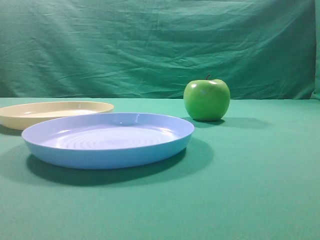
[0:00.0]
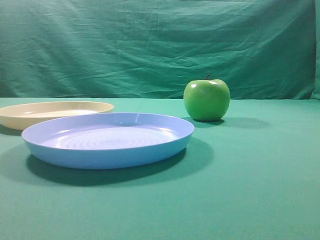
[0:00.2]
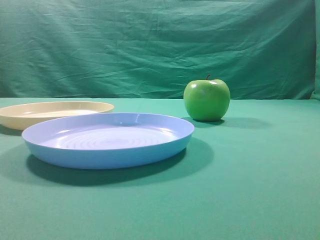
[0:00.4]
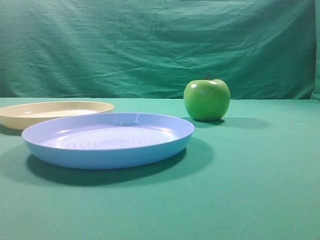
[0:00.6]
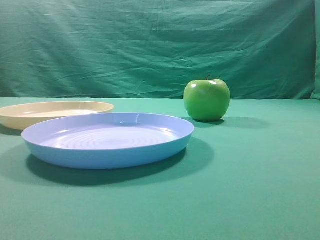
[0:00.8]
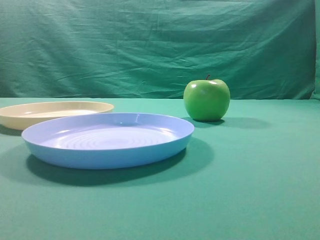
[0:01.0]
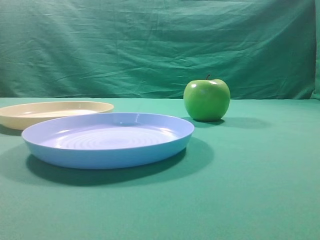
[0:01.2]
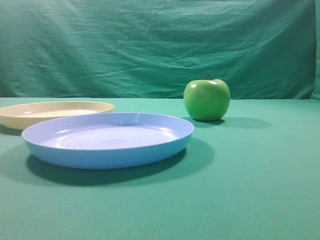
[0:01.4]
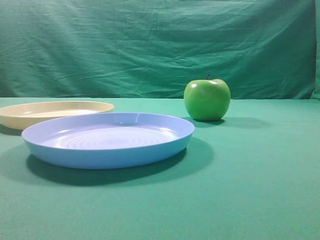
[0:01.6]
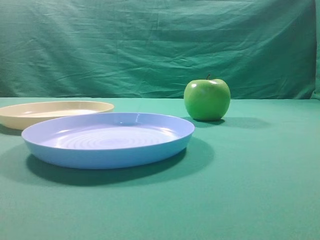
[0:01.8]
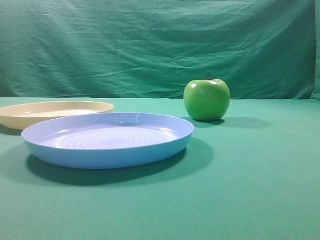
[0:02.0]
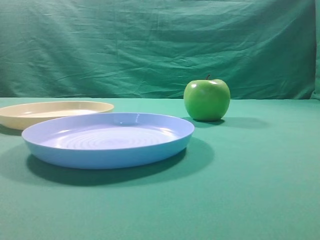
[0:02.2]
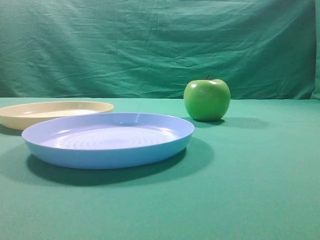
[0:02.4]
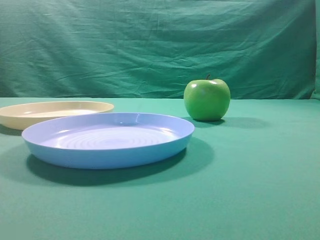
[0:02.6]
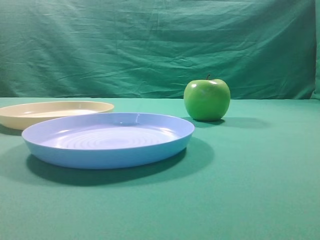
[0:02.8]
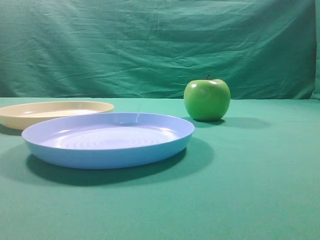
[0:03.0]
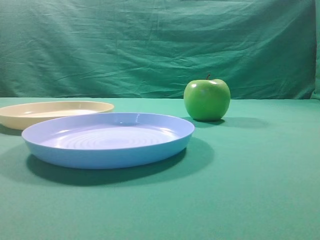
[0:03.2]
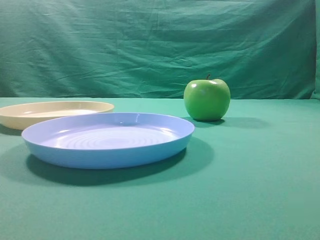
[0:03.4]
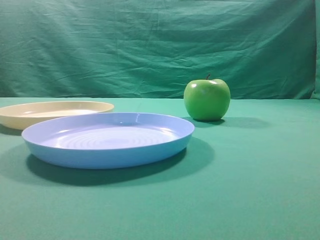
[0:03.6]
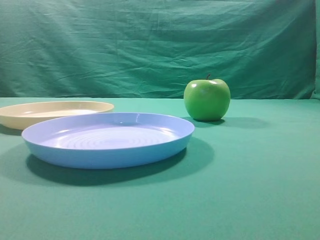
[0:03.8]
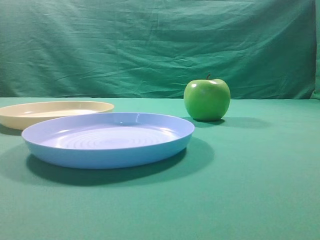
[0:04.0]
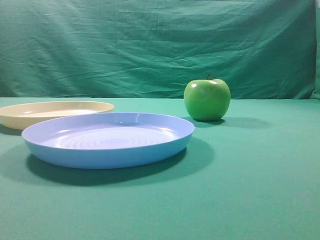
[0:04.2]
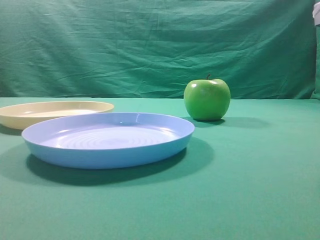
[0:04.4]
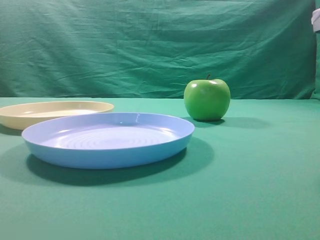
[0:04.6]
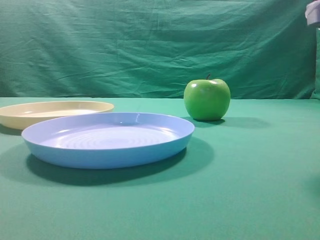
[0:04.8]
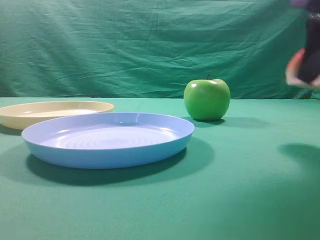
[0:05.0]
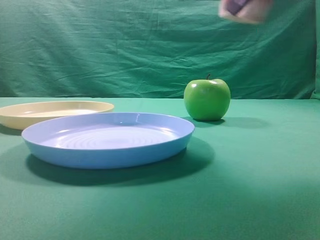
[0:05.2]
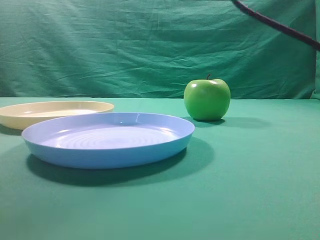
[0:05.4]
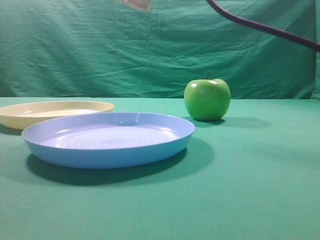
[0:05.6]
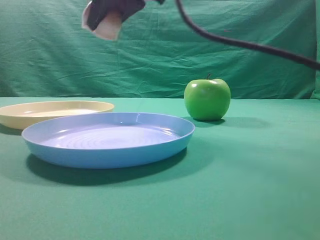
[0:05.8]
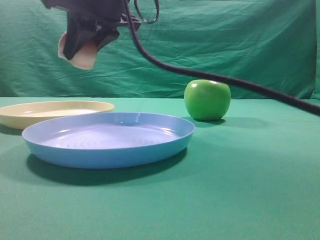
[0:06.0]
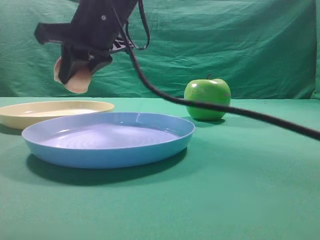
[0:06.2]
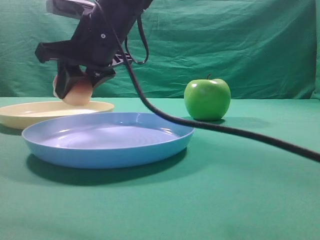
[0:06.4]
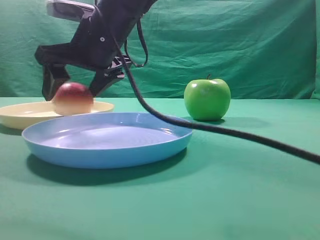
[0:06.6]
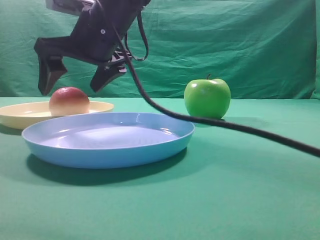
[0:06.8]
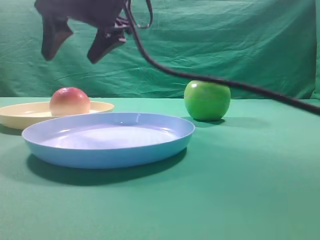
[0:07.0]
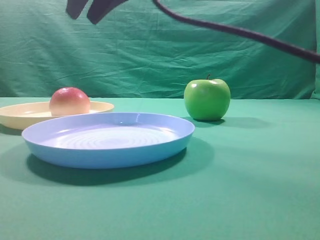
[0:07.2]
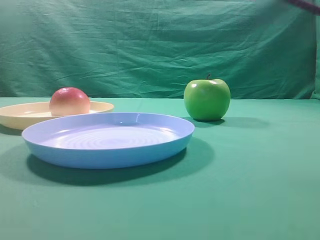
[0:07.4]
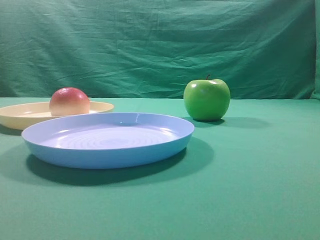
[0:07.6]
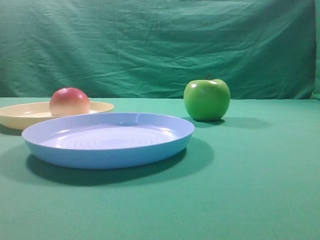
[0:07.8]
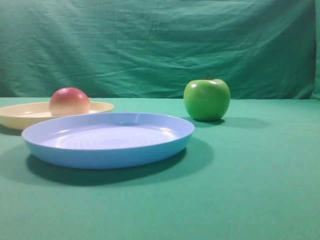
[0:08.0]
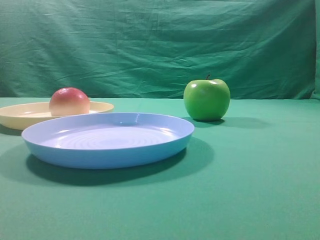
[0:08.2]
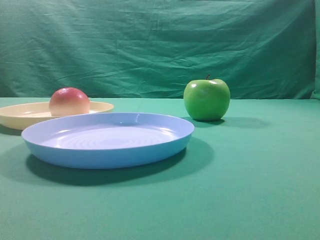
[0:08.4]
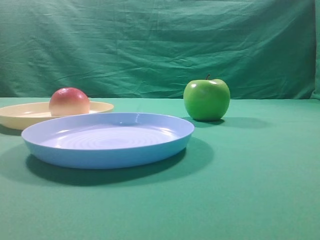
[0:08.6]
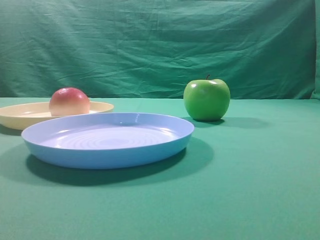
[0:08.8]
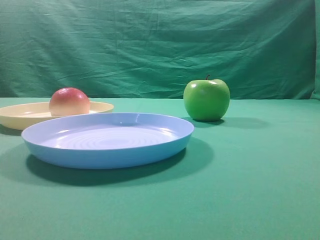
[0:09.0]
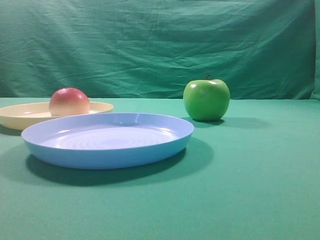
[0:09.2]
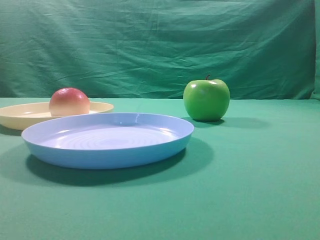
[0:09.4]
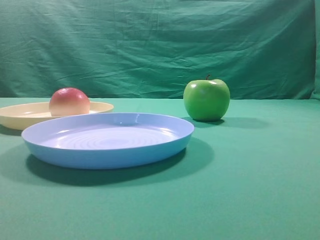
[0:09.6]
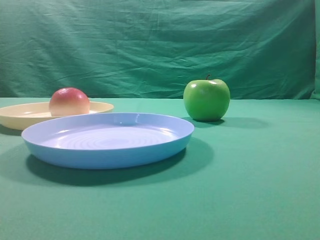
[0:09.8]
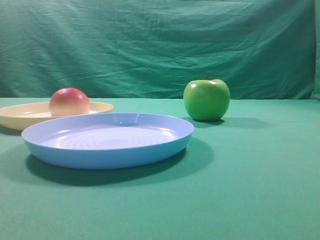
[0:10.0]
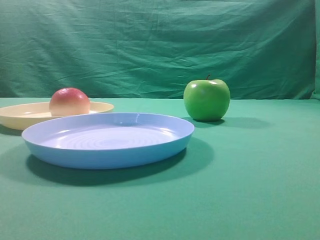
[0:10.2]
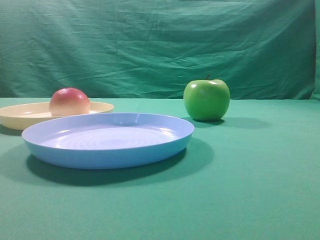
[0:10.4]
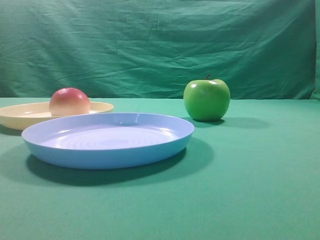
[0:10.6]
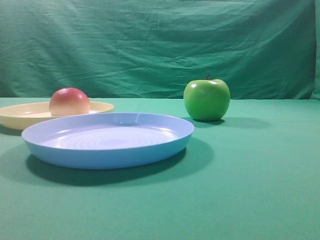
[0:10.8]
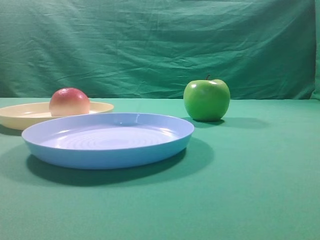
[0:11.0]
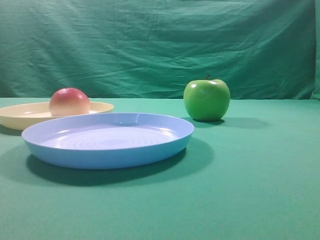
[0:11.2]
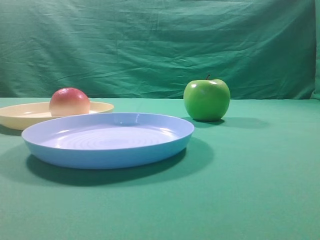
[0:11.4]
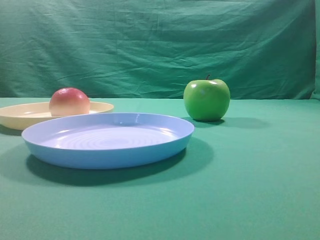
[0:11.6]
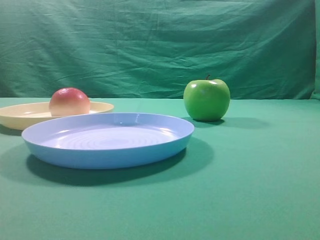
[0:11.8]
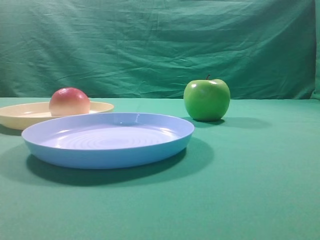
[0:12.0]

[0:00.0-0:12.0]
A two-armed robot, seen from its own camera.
Step, 0:05.0 to 0:06.8: Place the picked object on the yellow plate.
